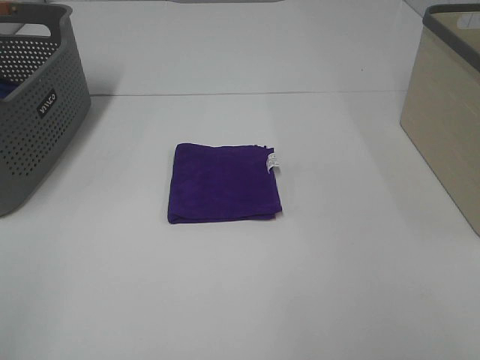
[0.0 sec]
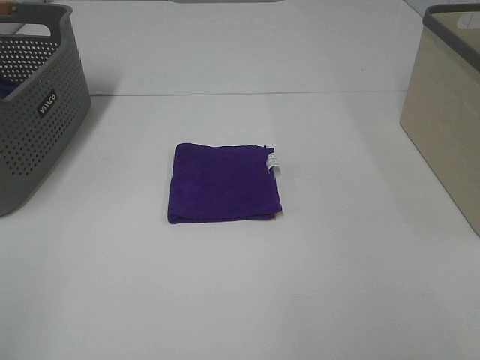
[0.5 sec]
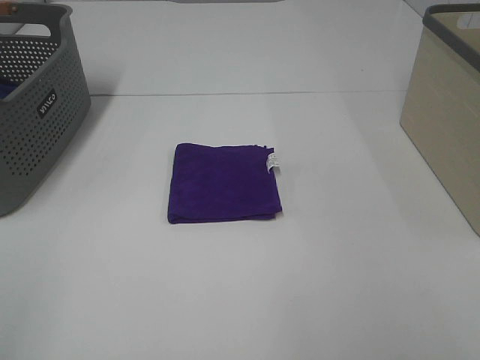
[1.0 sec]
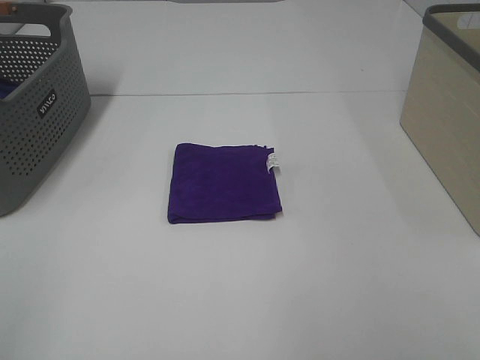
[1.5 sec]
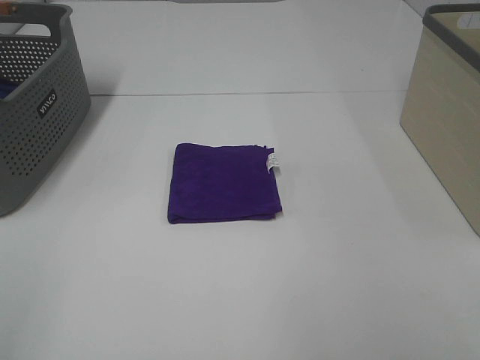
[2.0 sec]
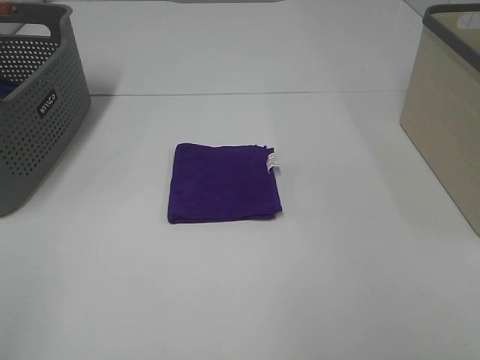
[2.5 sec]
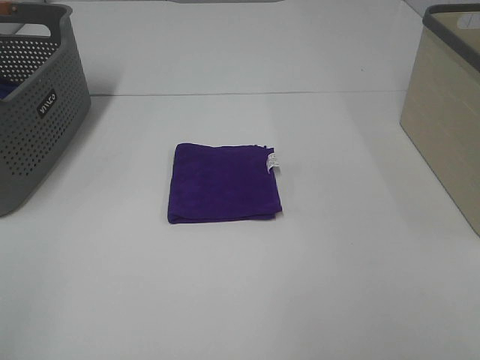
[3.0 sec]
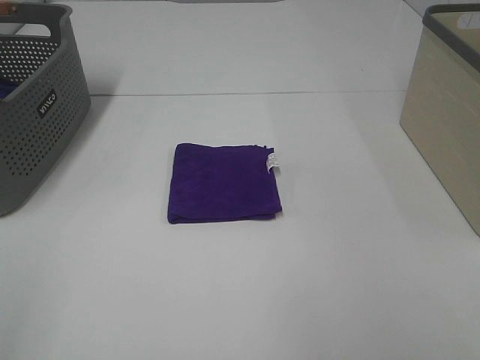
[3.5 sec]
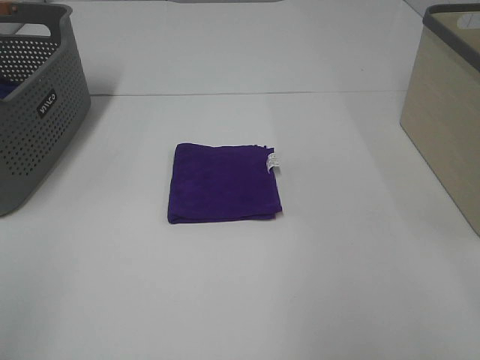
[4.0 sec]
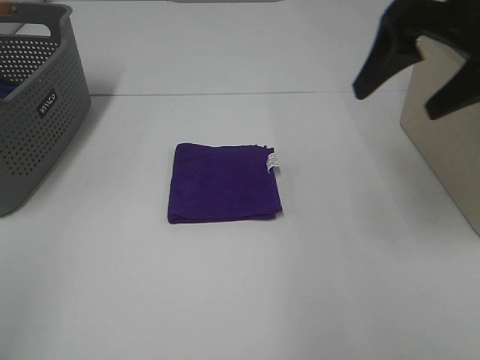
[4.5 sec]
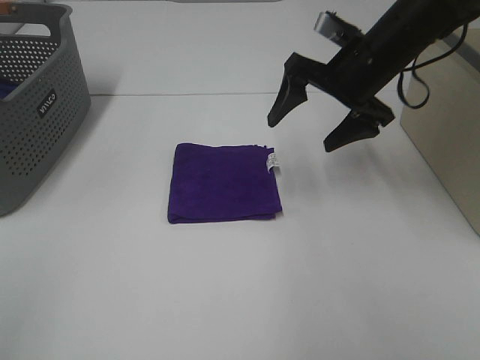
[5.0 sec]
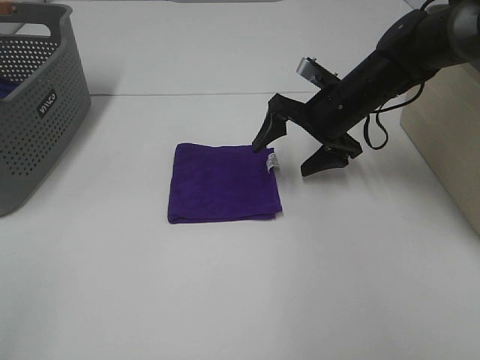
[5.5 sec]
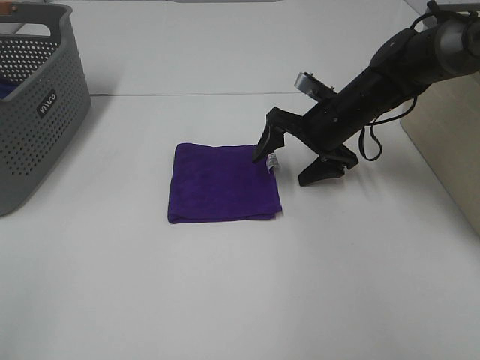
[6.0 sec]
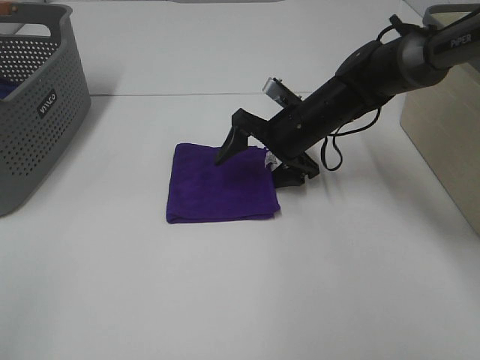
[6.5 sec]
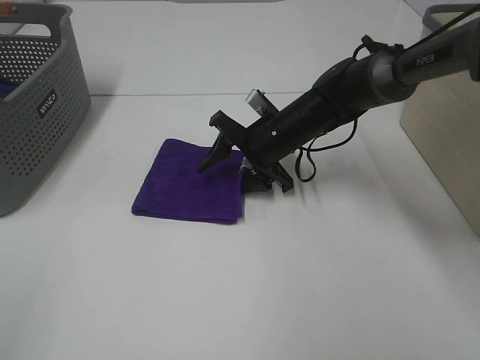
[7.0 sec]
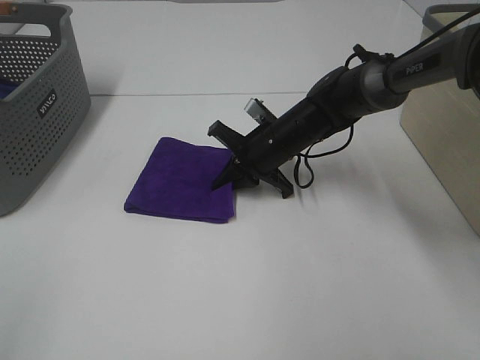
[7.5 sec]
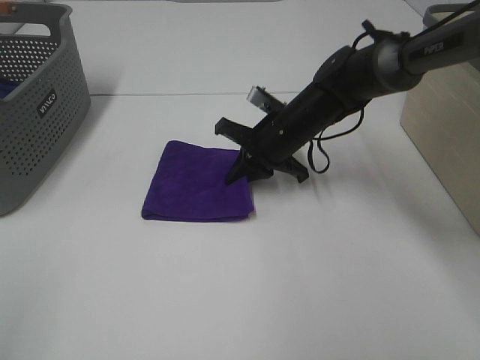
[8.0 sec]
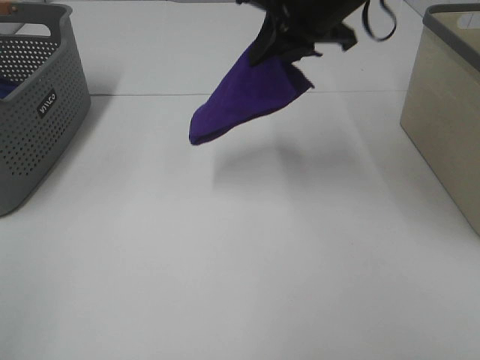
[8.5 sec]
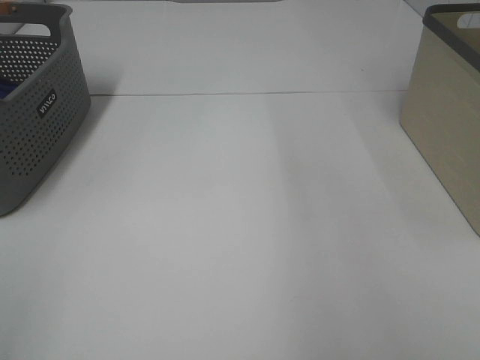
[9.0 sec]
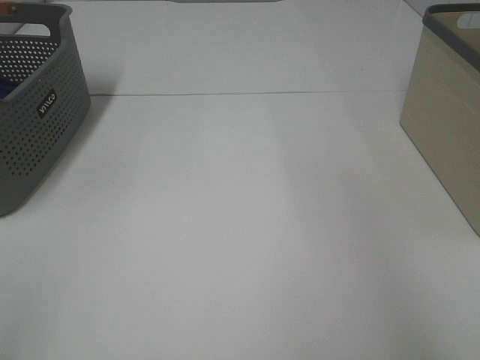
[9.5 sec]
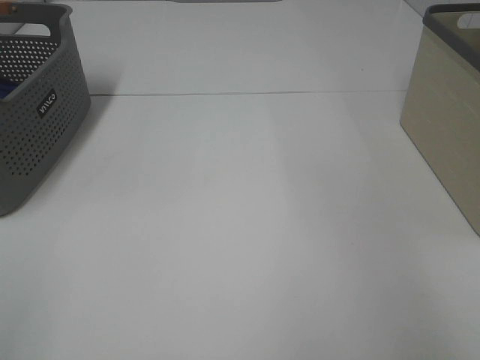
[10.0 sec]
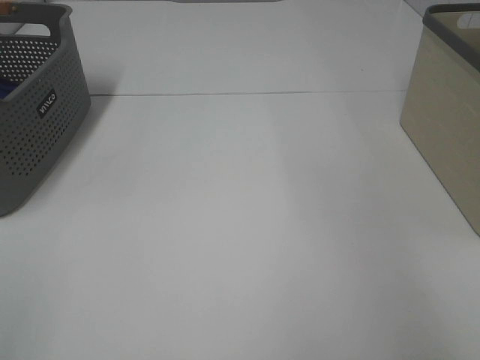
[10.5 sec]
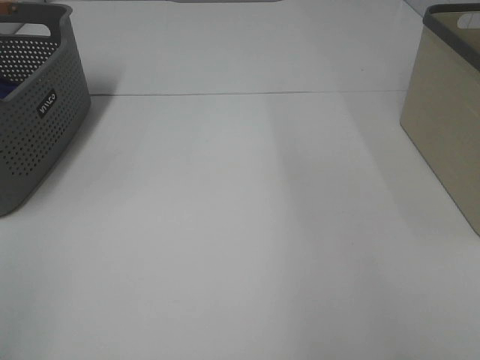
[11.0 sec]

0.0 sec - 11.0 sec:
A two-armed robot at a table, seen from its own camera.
Step, 0.0 sec - 7.5 sec: Right hand: grab the folded purple towel.
Step, 8.0 sec - 10.5 sec: Right hand: place the purple towel in right basket.
0.0 sec - 3.5 sec: Neither gripper changes place.
3.5 sec - 5.5 sec: The right gripper travels forward by about 40 cm.
5.5 sec - 7.5 sec: The right gripper goes approximately 10 cm to the left and downward, and closes.
7.5 sec - 9.0 sec: The right gripper travels upward and to the right by roughly 40 cm.

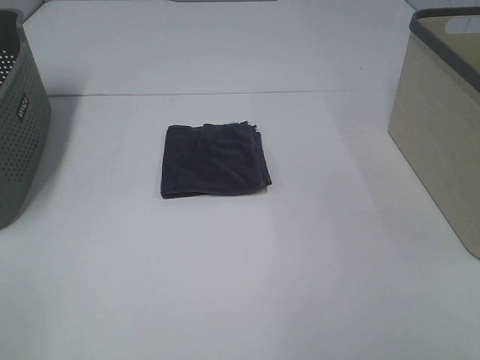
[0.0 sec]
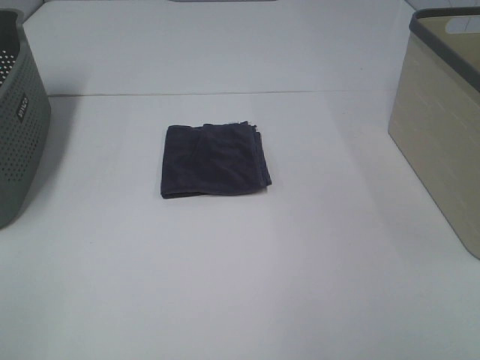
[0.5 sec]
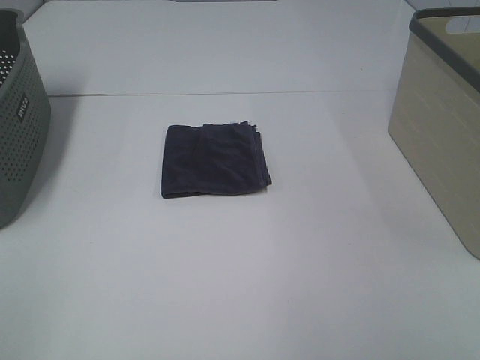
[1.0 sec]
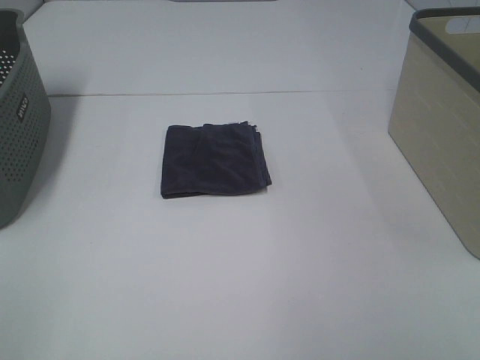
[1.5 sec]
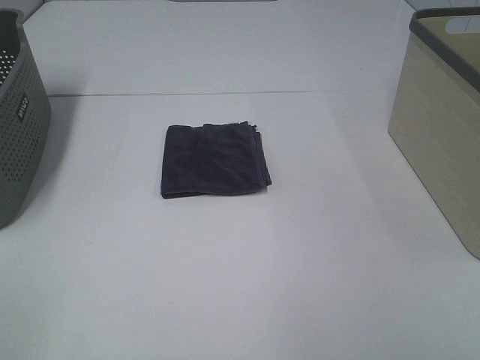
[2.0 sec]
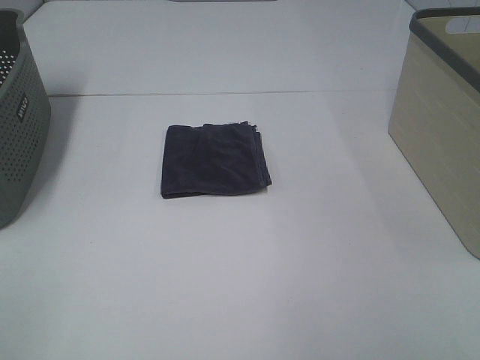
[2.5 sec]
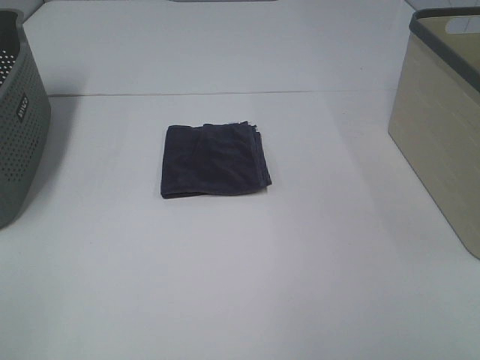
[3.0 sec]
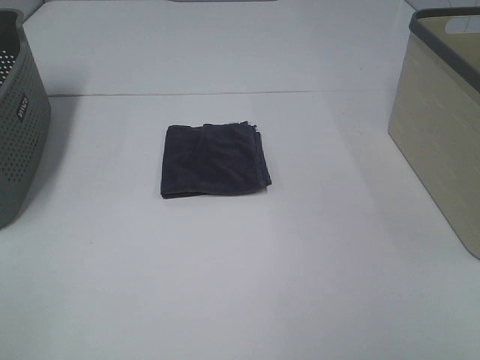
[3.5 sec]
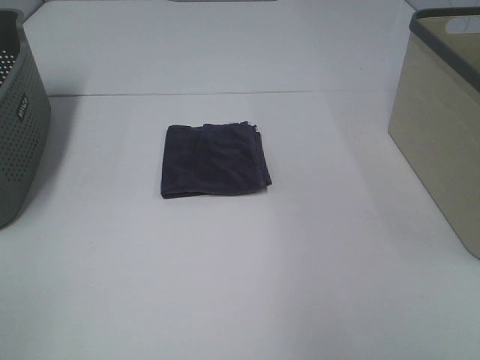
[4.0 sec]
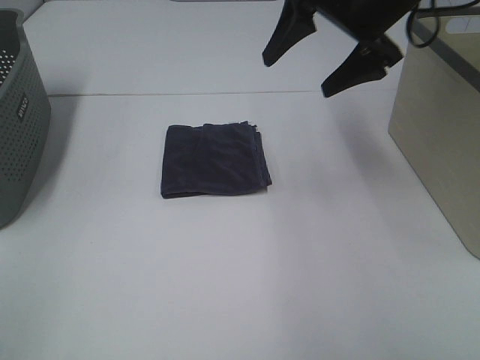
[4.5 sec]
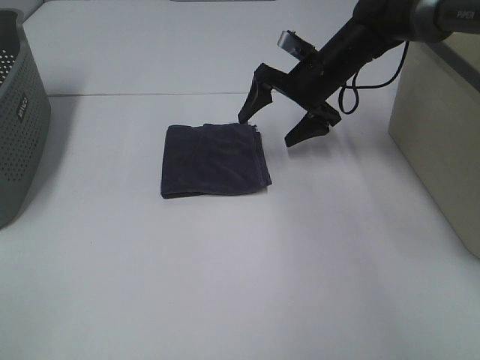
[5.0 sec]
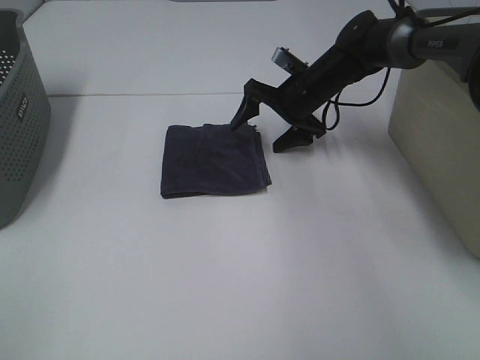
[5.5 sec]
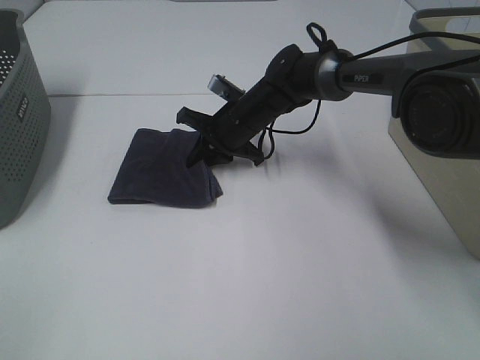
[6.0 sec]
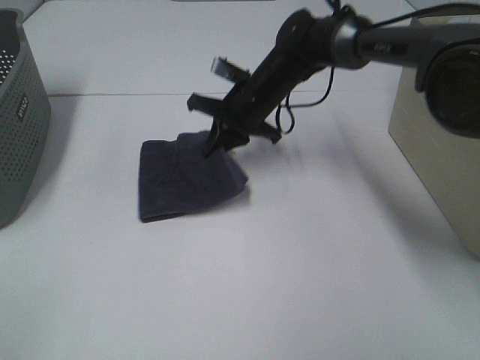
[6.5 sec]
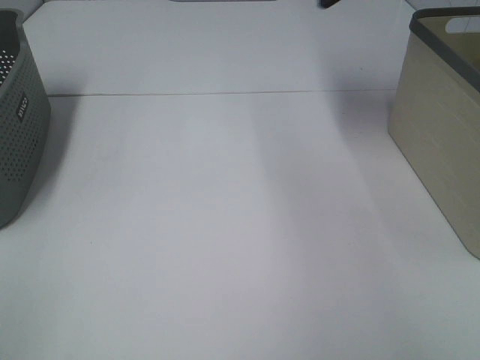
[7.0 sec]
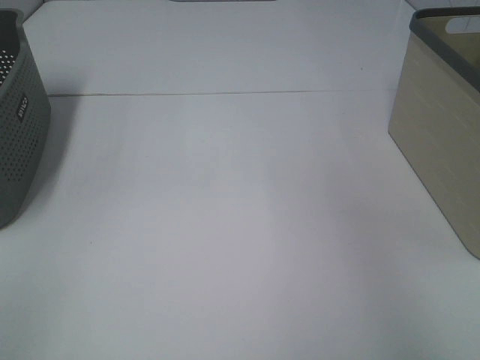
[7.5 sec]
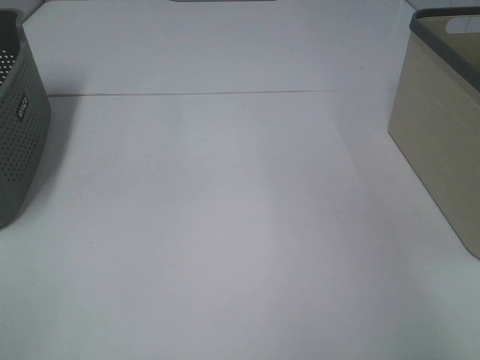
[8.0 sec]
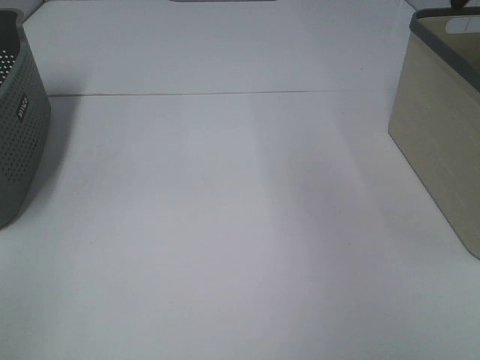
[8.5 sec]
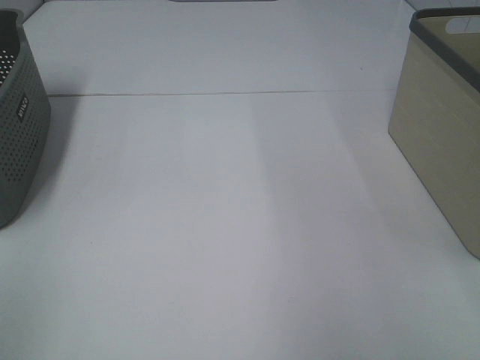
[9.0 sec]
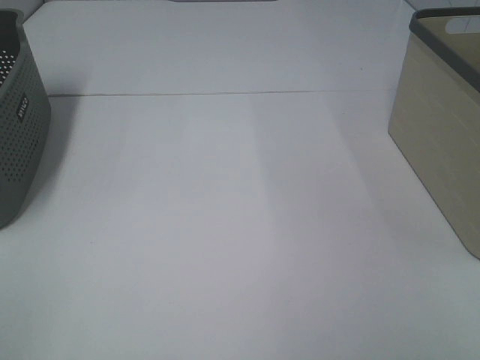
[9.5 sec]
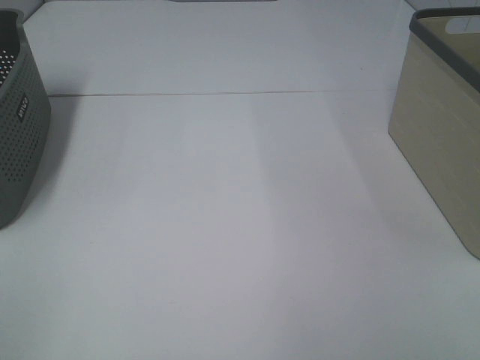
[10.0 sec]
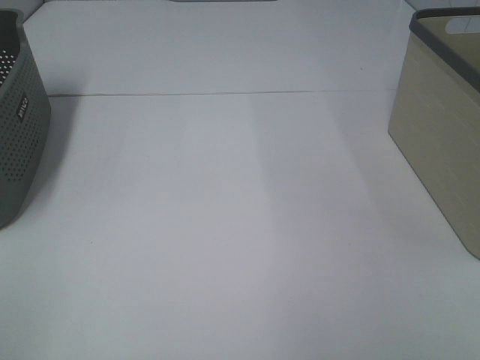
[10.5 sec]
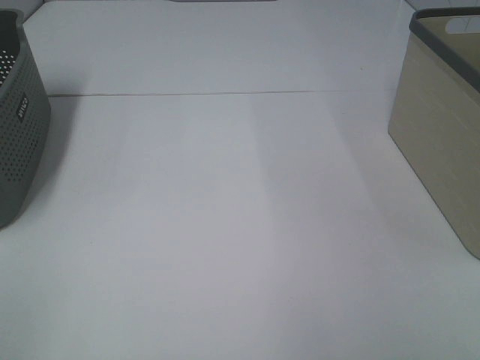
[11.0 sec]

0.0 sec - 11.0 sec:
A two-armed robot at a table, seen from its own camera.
Step, 0.0 sec - 6.0 sec: Right hand: grab the folded grey towel.
Step, 6.5 sec - 8.0 sec: Right hand: place the grey towel in right basket.
0.0 sec - 2.0 sec: Neither gripper changes place.
3.5 sec - 5.5 sec: The right gripper travels forward and downward by some 50 cm.
5.5 sec - 7.5 sec: The right gripper goes up and down, approximately 40 cm each way, reversing 2 times, and closes up.

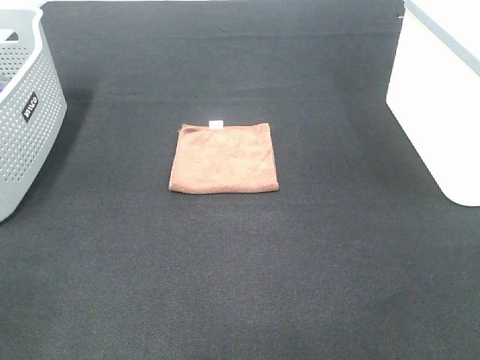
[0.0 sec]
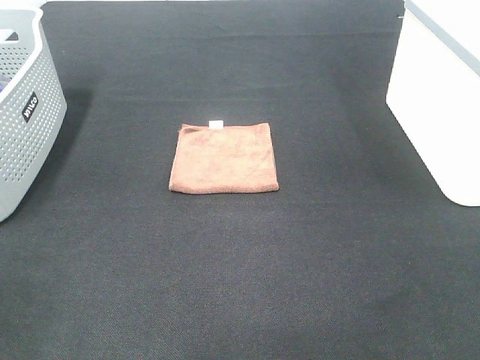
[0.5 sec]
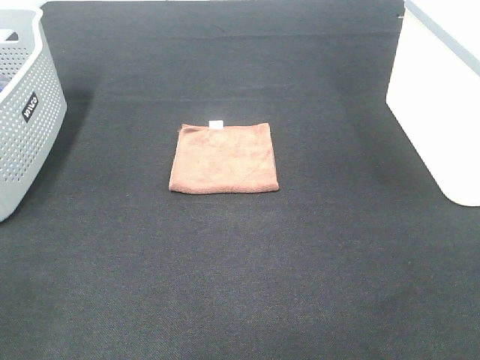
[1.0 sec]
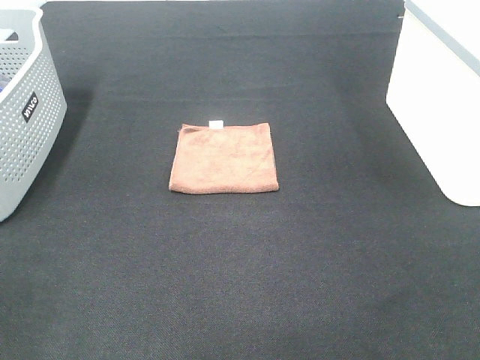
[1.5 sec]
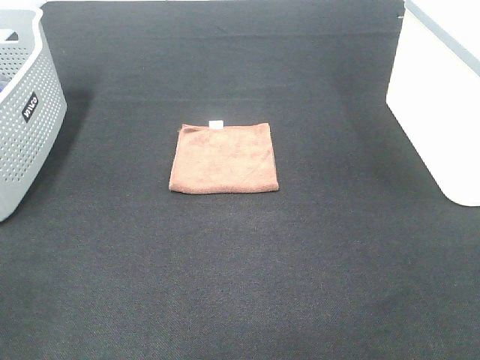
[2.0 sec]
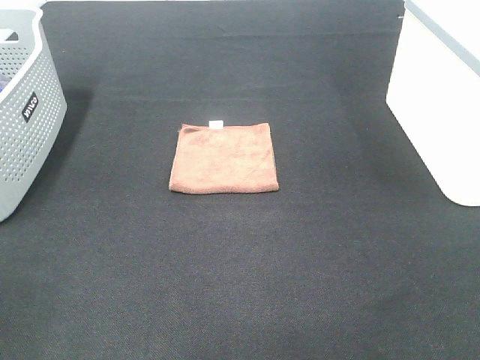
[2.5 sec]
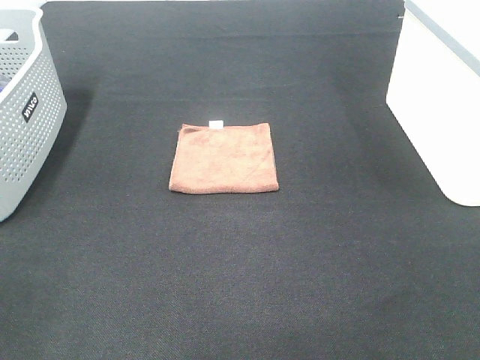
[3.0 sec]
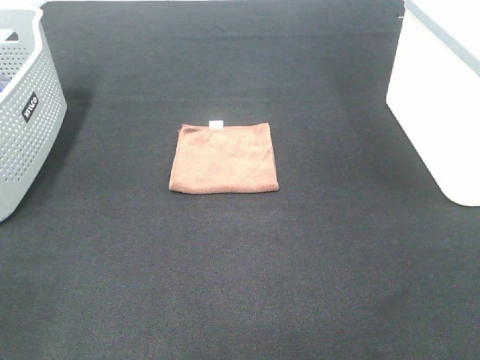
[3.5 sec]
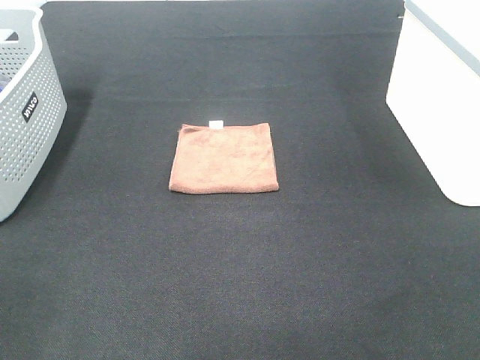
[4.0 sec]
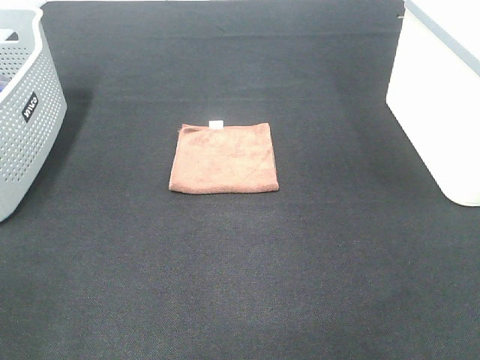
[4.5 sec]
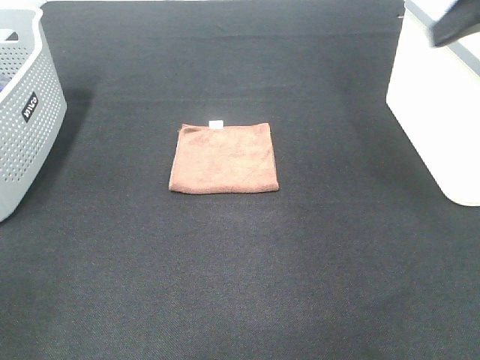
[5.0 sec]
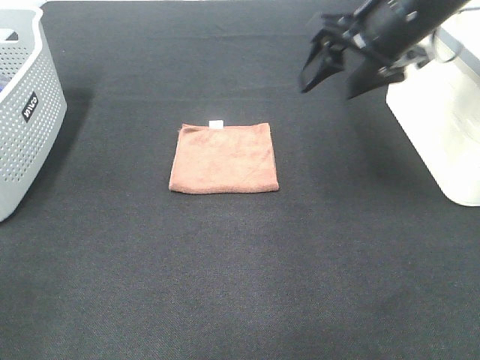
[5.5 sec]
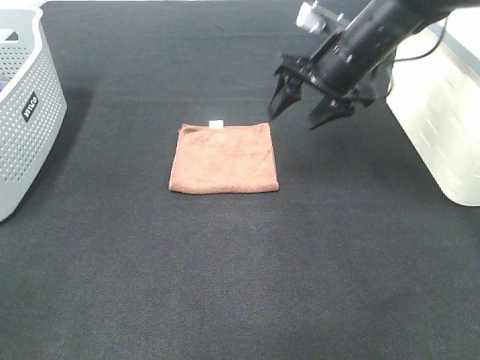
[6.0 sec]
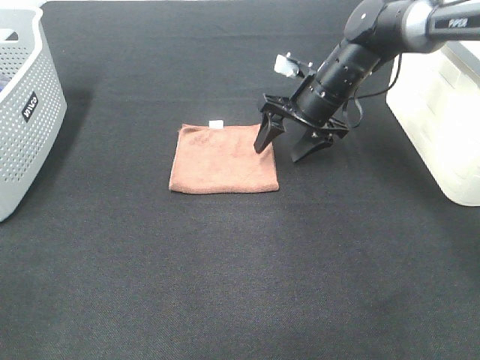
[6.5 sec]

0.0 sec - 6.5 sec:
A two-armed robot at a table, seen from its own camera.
0.0 sec - 2.0 sec: Both grippers stay put.
4.5 sec - 6.5 sec: The right gripper is displaced forward, downward and to the left by roughly 40 cm.
